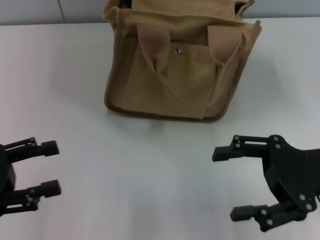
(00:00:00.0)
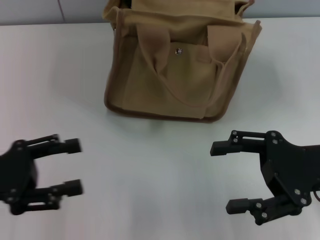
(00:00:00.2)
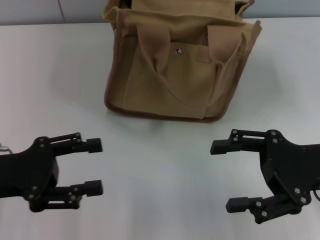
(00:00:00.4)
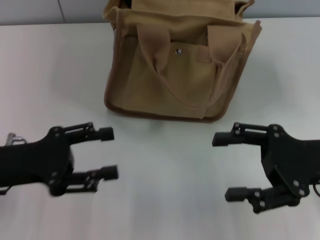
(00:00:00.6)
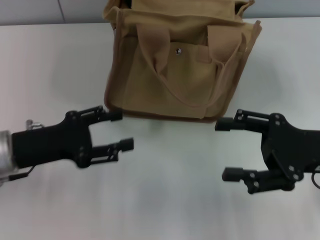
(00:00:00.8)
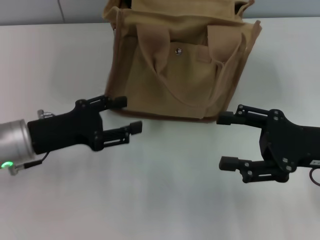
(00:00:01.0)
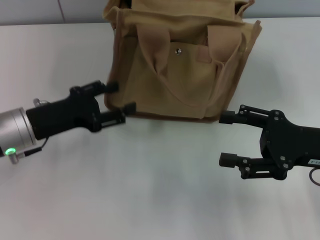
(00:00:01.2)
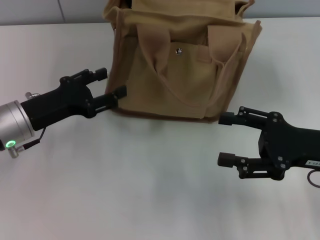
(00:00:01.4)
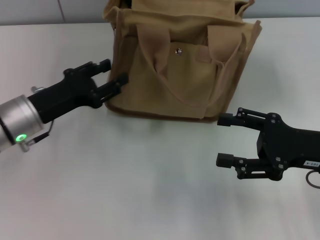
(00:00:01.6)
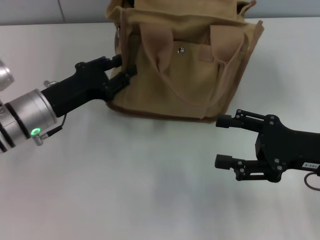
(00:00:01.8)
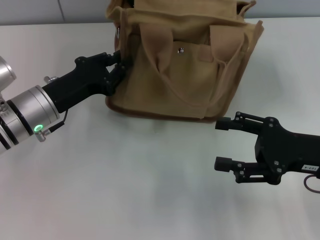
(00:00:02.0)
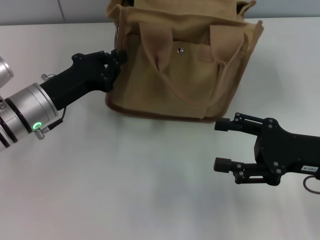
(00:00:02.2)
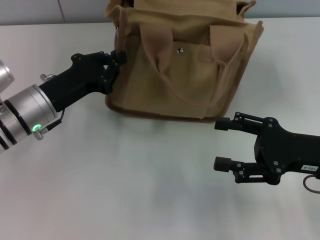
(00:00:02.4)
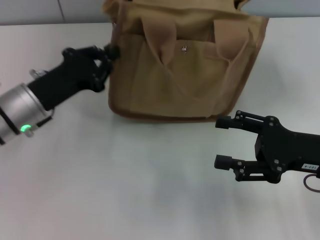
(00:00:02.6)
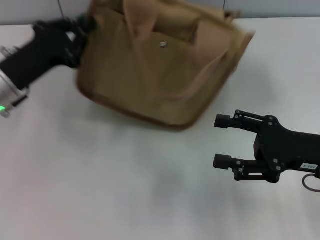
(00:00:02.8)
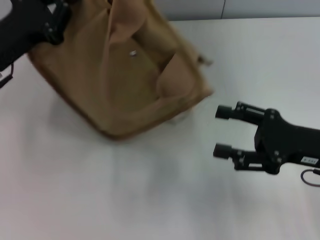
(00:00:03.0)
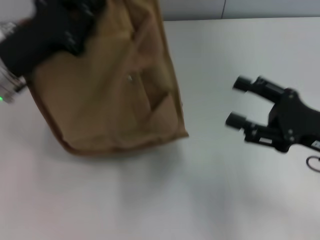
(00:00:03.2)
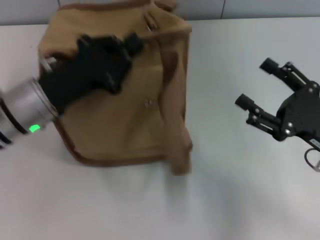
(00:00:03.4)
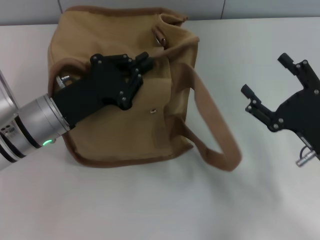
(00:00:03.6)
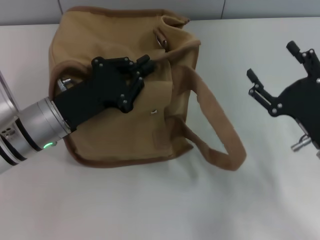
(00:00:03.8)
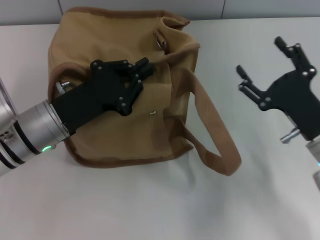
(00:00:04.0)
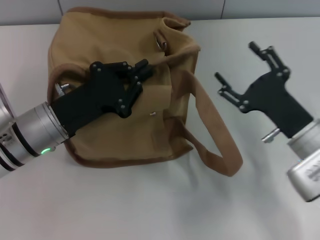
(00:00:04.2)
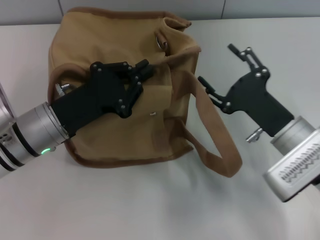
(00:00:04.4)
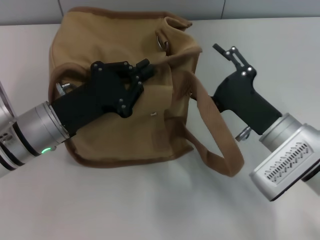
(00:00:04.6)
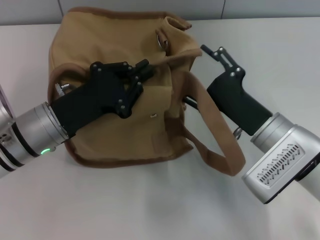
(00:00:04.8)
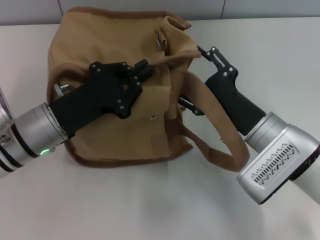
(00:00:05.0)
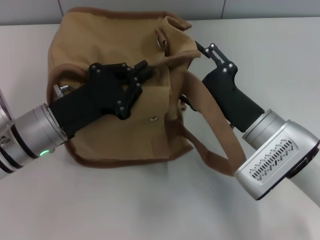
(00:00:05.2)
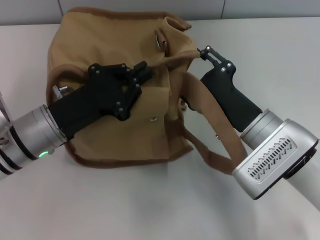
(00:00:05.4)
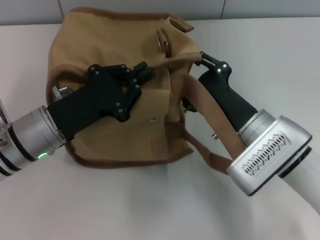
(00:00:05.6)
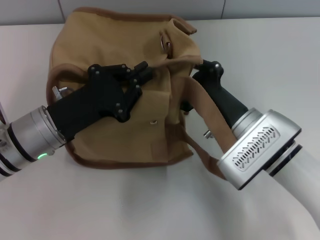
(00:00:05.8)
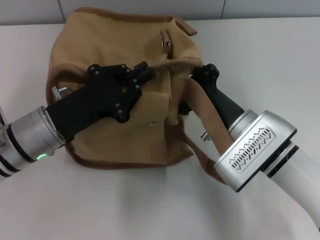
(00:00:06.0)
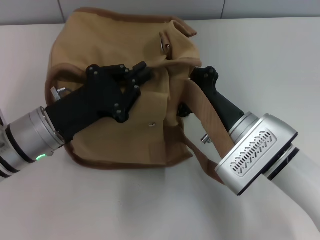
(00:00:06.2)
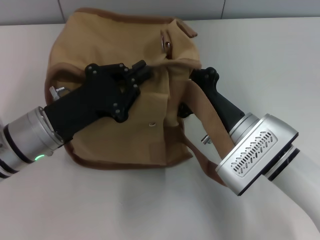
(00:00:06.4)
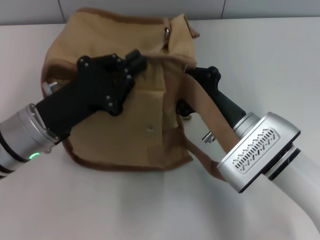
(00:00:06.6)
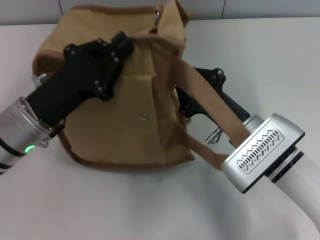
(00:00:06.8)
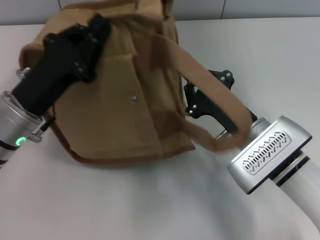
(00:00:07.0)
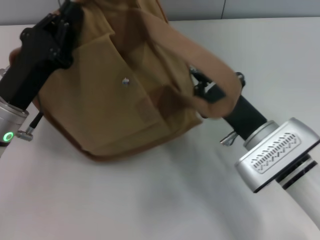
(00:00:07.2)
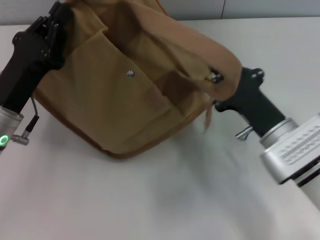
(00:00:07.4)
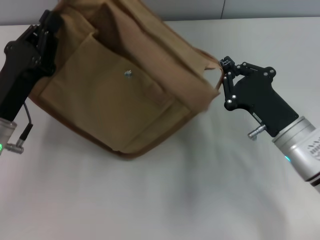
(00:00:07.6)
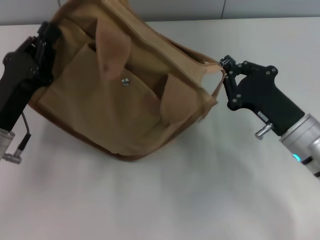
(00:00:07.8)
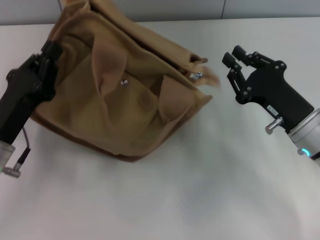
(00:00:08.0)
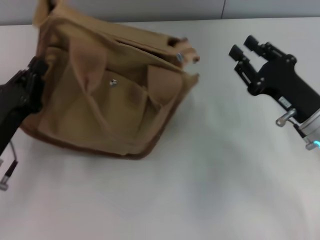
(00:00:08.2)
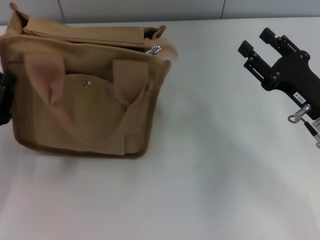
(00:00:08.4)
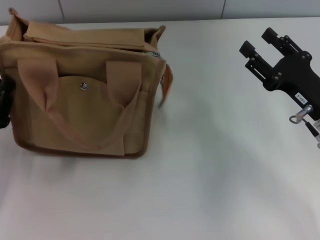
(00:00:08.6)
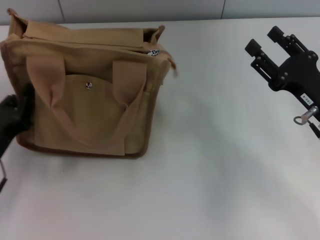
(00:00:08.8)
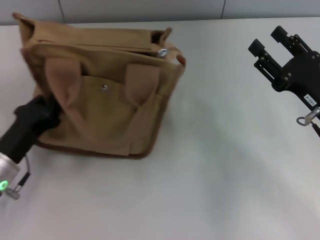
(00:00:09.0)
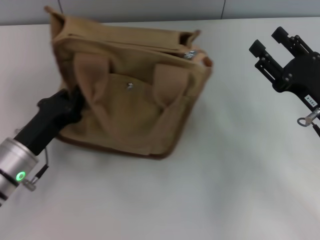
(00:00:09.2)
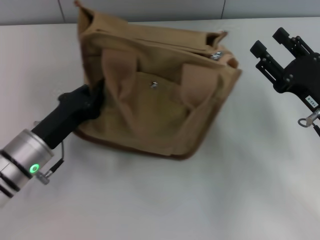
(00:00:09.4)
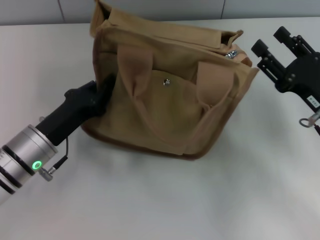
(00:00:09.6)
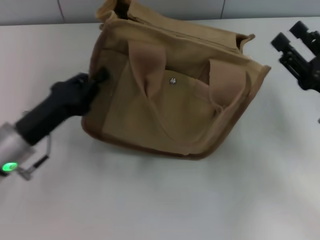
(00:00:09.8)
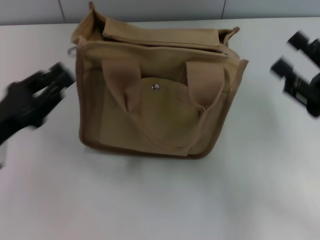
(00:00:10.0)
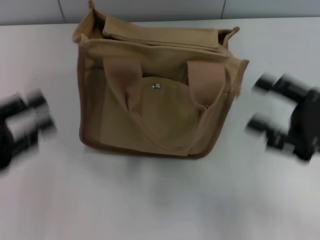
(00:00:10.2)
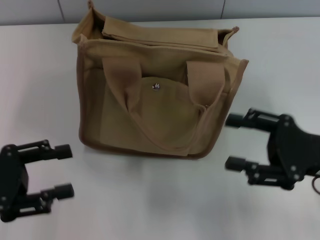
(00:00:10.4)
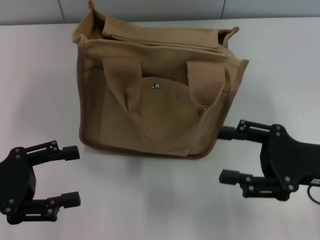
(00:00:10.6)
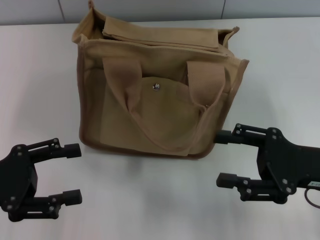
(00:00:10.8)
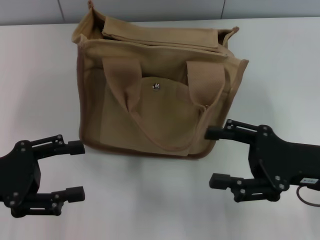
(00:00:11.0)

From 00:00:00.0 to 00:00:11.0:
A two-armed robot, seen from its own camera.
Step, from 00:00:00.0 to 00:00:08.0: Pull open the zipper with your right hand.
Step, from 00:00:08.4 to 00:00:10.0: Grab the bag with your left hand.
From 00:00:00.0 to 00:00:01.6: The left gripper heads forward and to the right, covering roughly 15 cm.
From 00:00:01.6 to 00:00:03.2: The left gripper heads upward, covering about 5 cm, and closes up.
From 00:00:03.2 to 00:00:04.8: The left gripper moves downward, roughly 5 cm. Meanwhile the right gripper travels to the left by about 10 cm.
From 00:00:04.8 to 00:00:06.2: The right gripper closes its fingers.
From 00:00:06.2 to 00:00:07.8: The left gripper changes place by roughly 5 cm. The right gripper is displaced to the right by some 10 cm.
From 00:00:07.8 to 00:00:09.4: The right gripper moves to the right, some 5 cm, and opens. Meanwhile the left gripper reaches about 5 cm to the left, then returns.
From 00:00:09.4 to 00:00:11.0: The left gripper heads to the left and upward, covering approximately 10 cm, and opens.

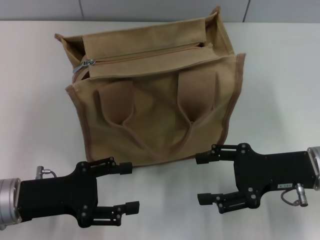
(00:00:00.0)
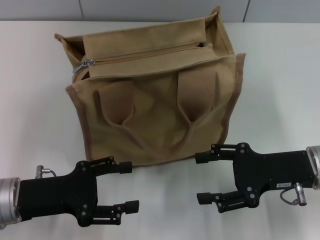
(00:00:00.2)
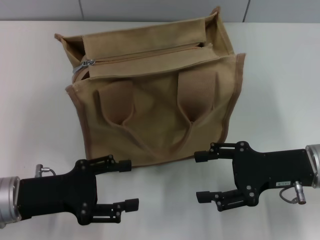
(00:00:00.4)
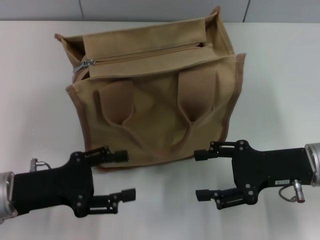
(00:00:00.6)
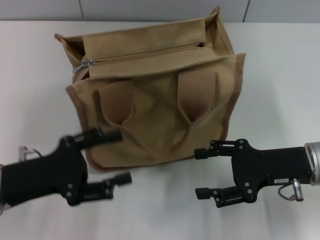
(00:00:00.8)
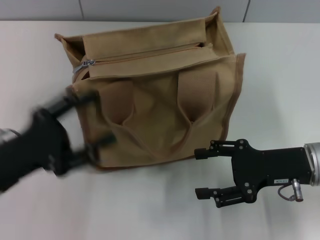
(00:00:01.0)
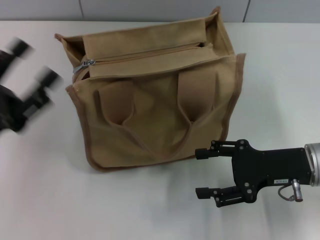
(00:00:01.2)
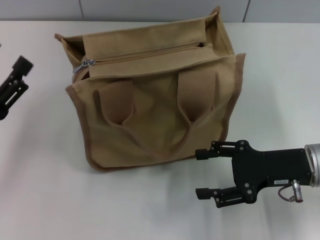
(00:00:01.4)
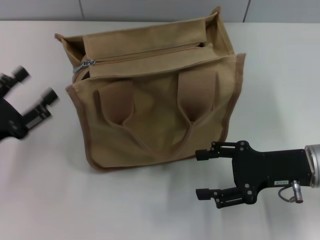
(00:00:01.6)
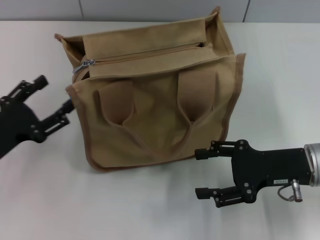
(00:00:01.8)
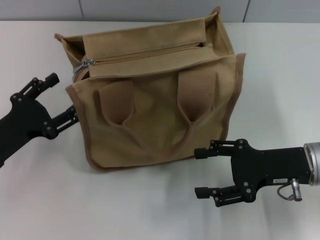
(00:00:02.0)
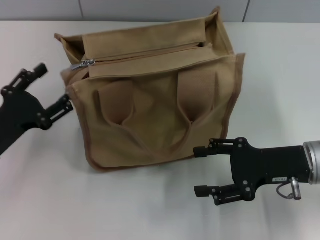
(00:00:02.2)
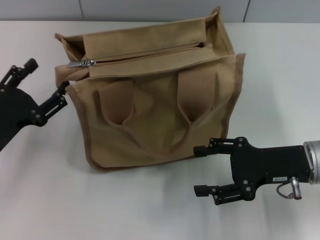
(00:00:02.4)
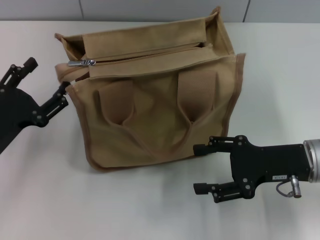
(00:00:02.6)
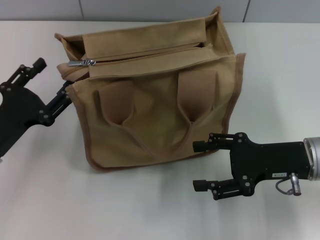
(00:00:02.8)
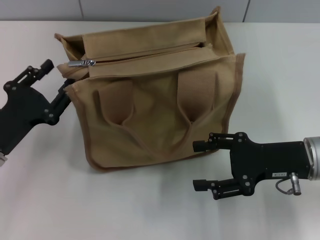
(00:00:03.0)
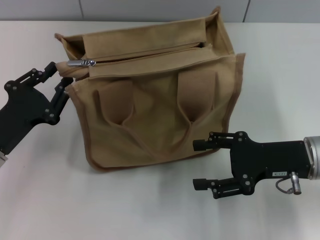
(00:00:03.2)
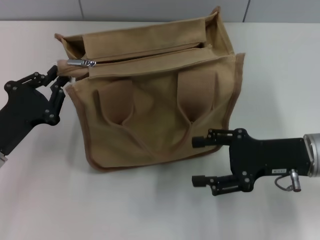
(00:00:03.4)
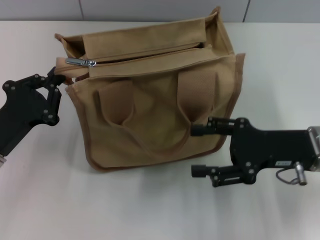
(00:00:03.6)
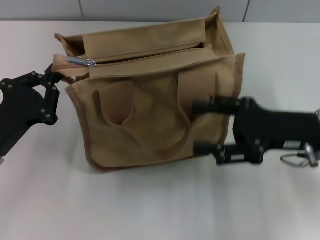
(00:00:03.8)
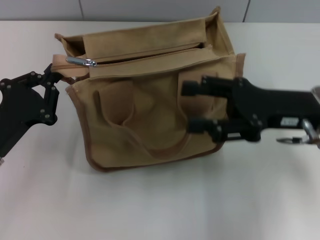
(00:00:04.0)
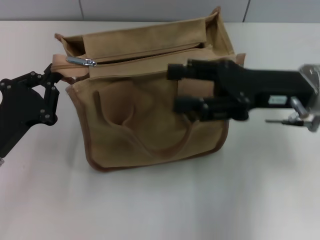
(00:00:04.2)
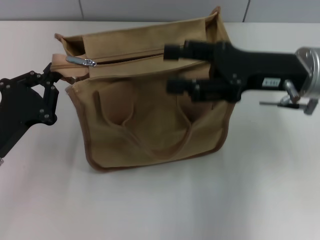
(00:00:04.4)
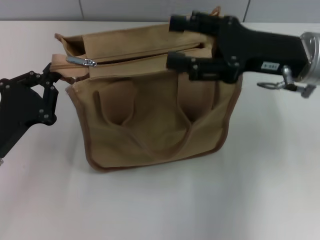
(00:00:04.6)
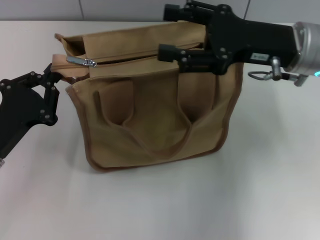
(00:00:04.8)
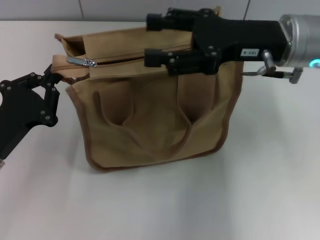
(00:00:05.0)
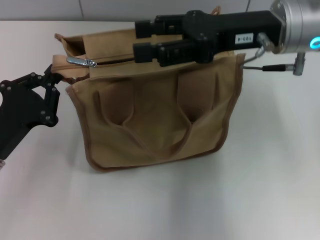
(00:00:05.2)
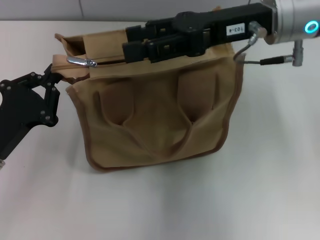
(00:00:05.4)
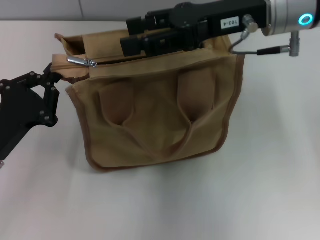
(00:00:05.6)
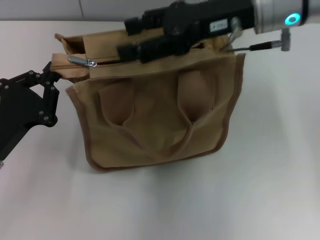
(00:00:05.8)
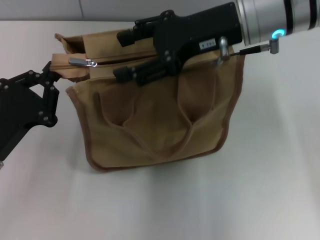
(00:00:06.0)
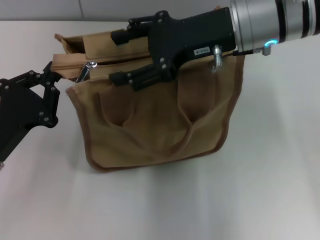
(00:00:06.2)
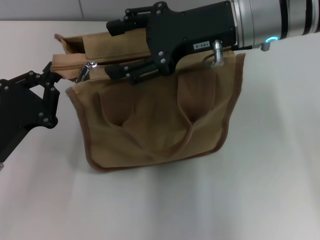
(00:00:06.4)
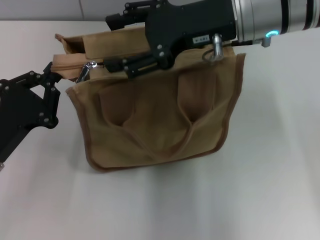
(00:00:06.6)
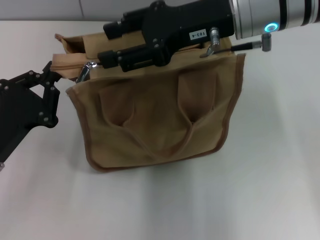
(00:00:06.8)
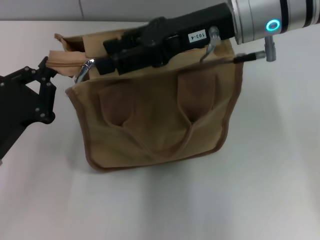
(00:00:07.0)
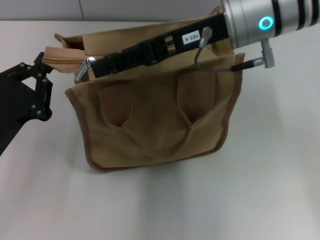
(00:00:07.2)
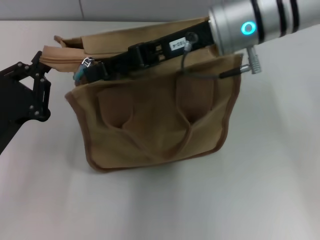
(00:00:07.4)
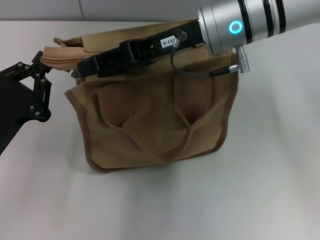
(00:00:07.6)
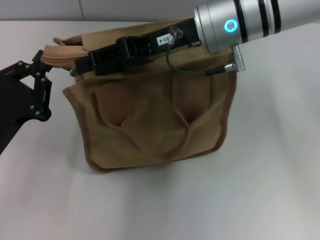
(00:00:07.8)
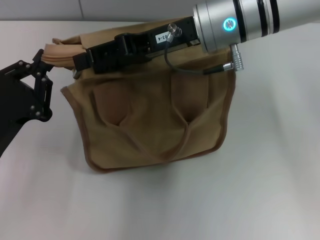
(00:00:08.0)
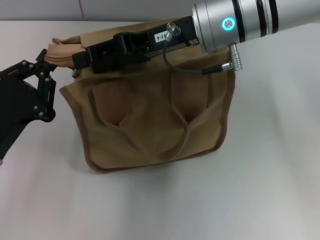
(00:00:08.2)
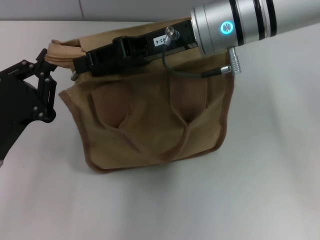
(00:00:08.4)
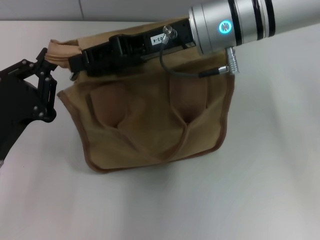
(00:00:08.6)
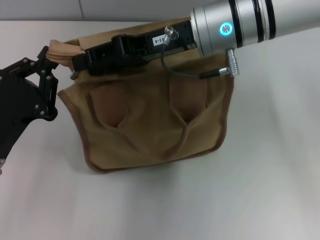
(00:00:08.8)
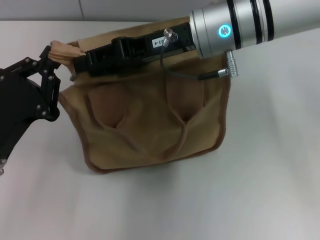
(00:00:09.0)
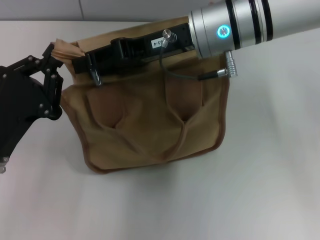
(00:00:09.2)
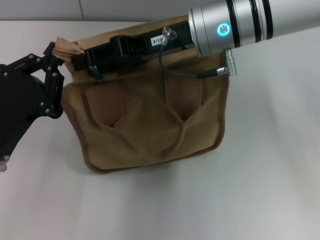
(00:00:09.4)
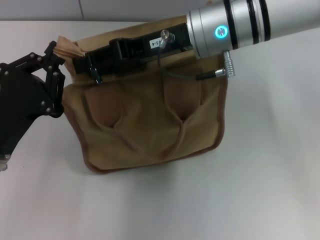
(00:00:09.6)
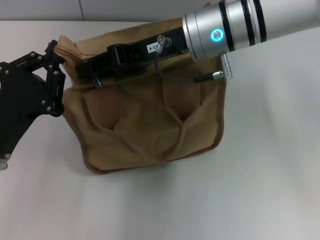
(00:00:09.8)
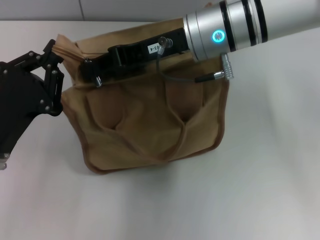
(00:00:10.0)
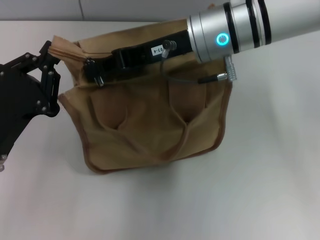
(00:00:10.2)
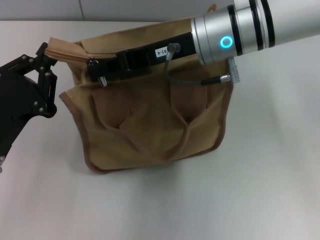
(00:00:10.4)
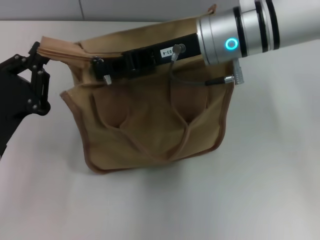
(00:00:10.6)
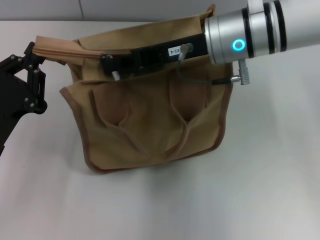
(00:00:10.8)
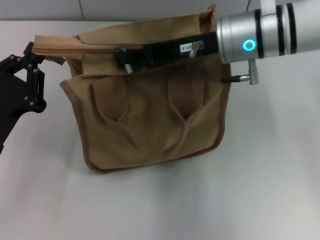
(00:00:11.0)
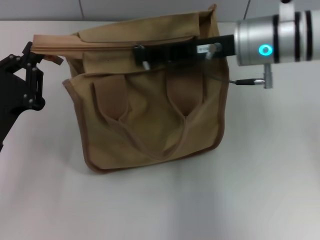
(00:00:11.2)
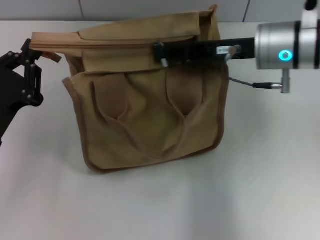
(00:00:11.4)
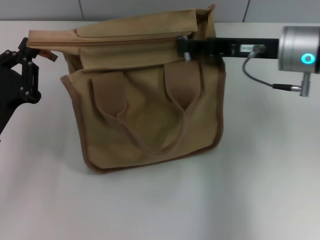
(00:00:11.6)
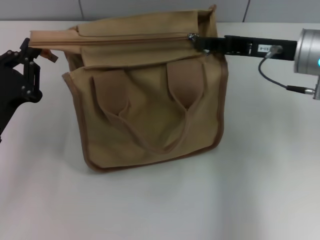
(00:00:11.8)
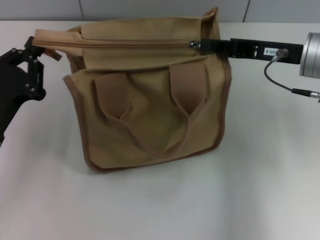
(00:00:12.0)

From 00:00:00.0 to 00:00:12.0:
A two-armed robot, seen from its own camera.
From 00:00:00.0 to 00:00:01.6: The left gripper travels to the left by roughly 5 cm.
From 00:00:01.6 to 00:00:03.0: The grippers stay close to where they were, moving slightly.
From 00:00:03.0 to 00:00:04.4: The right gripper shifts approximately 10 cm upward and forward; the left gripper closes.
From 00:00:04.4 to 00:00:06.0: The right gripper travels to the left and upward by approximately 10 cm.
From 00:00:07.6 to 00:00:09.0: The grippers move only a little.
From 00:00:09.0 to 00:00:10.4: The right gripper closes its fingers.
From 00:00:10.4 to 00:00:12.0: The right gripper is displaced to the right by approximately 15 cm.
